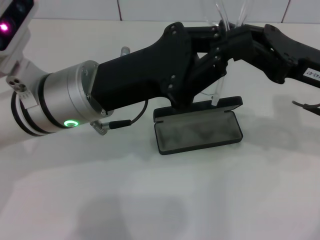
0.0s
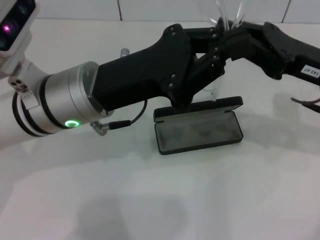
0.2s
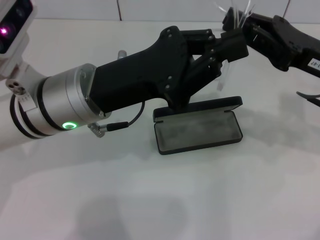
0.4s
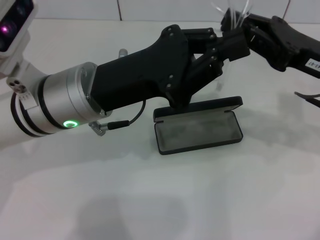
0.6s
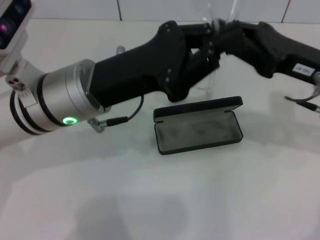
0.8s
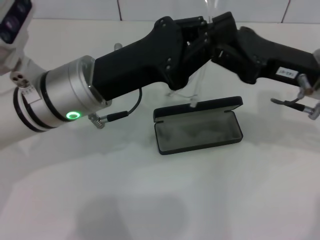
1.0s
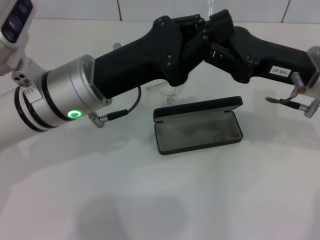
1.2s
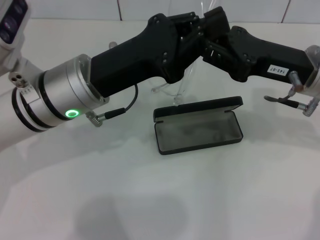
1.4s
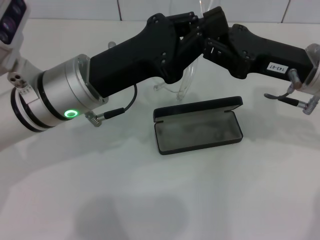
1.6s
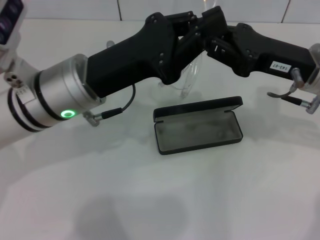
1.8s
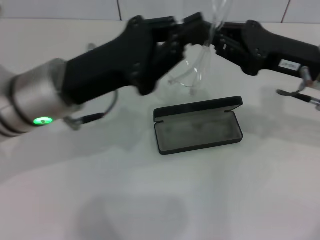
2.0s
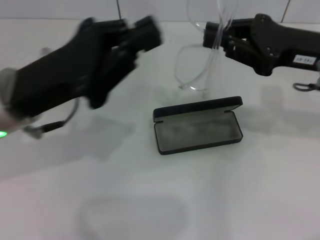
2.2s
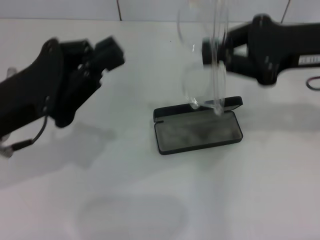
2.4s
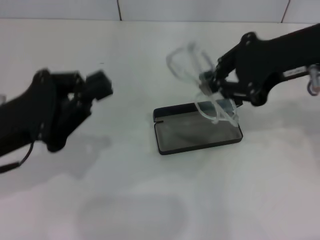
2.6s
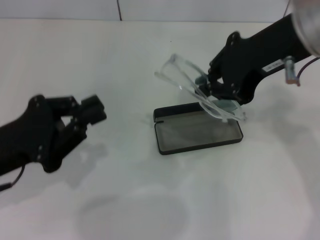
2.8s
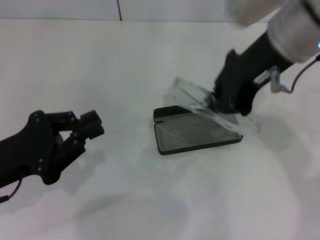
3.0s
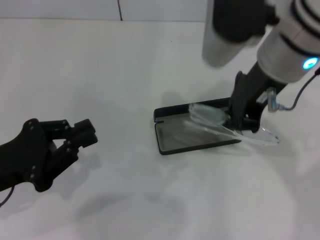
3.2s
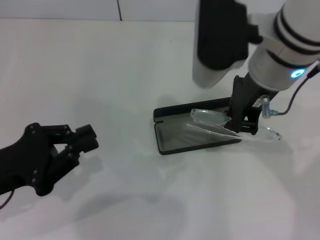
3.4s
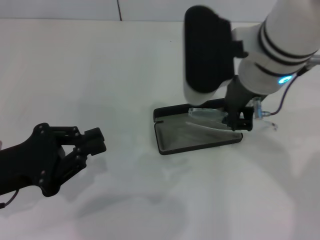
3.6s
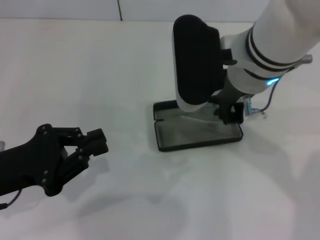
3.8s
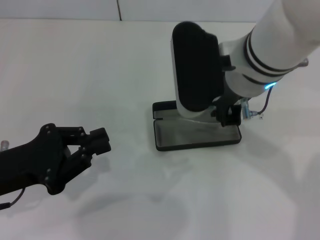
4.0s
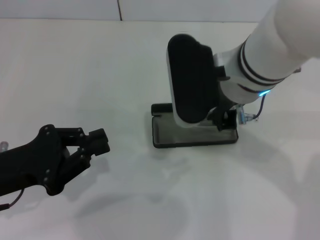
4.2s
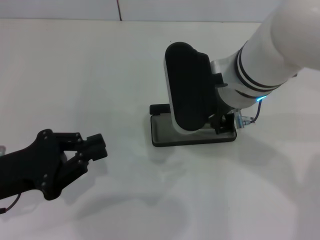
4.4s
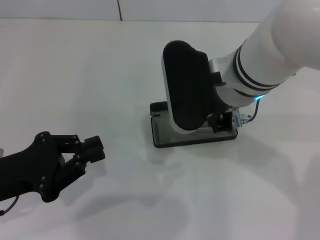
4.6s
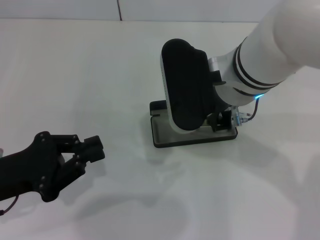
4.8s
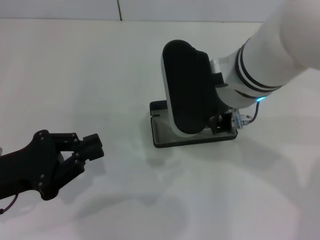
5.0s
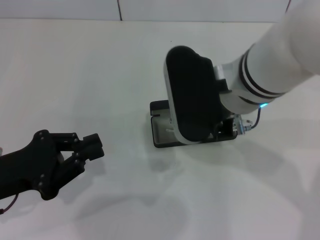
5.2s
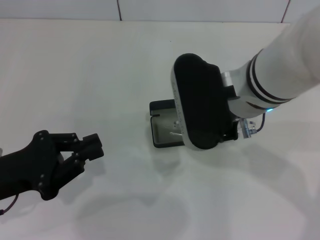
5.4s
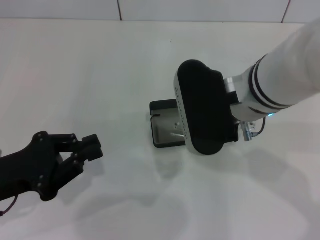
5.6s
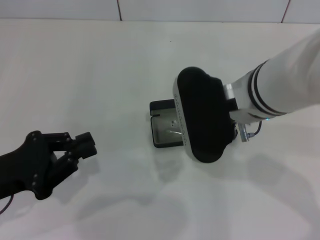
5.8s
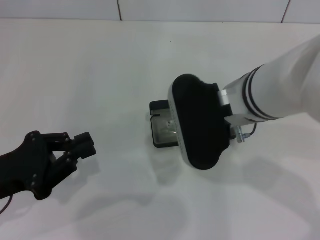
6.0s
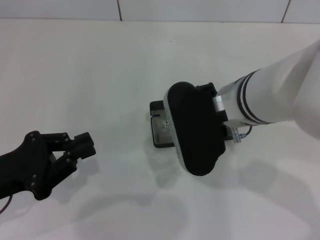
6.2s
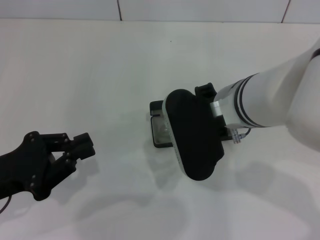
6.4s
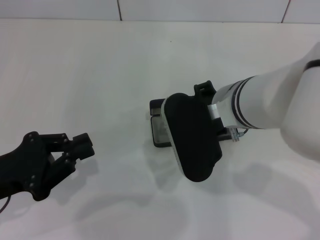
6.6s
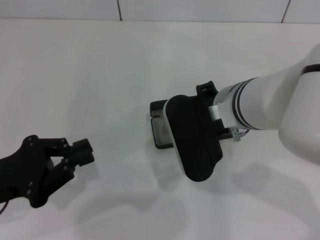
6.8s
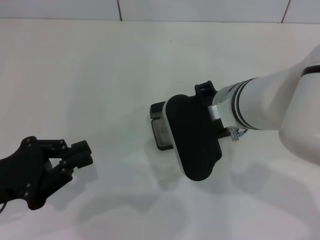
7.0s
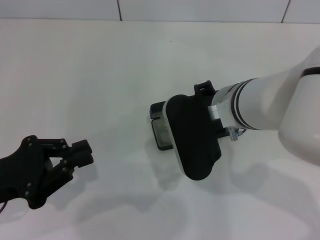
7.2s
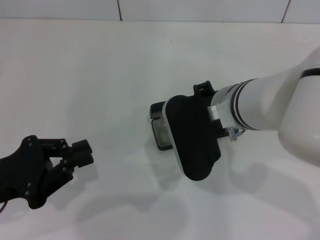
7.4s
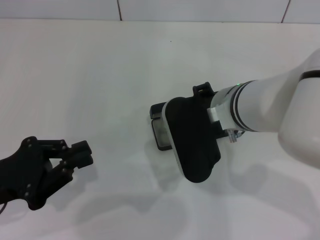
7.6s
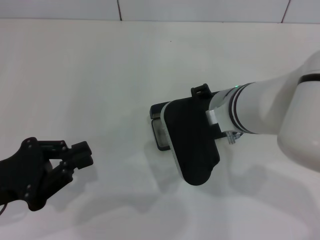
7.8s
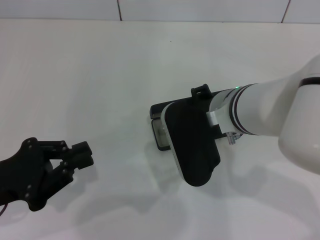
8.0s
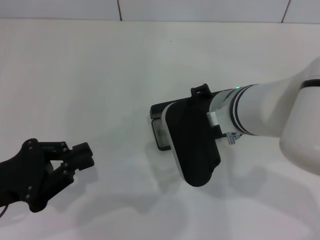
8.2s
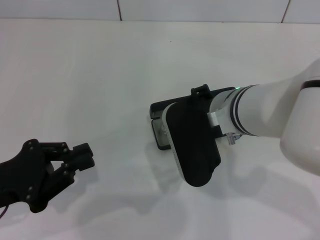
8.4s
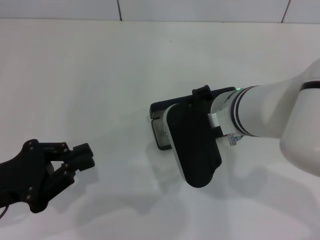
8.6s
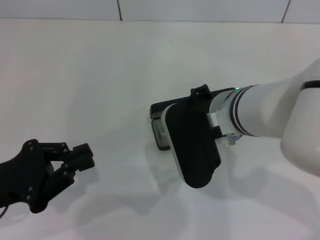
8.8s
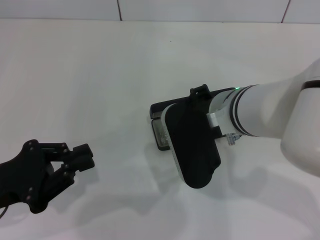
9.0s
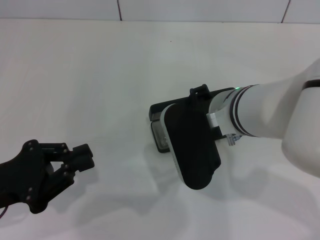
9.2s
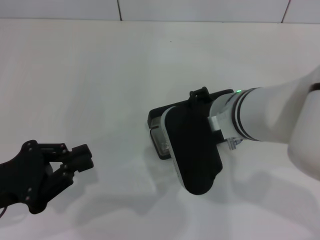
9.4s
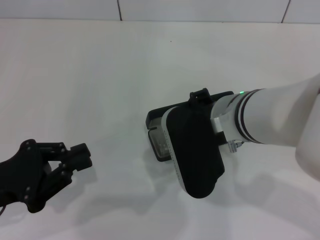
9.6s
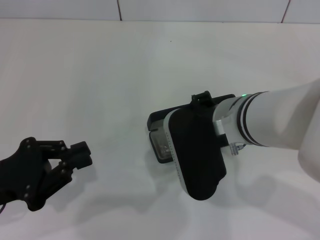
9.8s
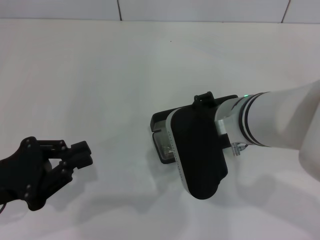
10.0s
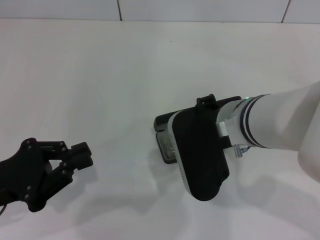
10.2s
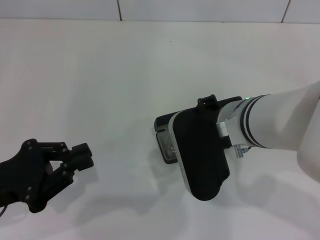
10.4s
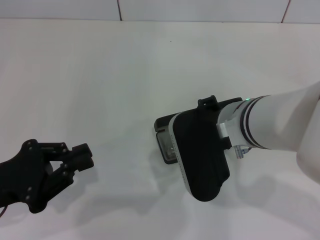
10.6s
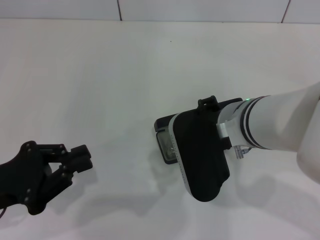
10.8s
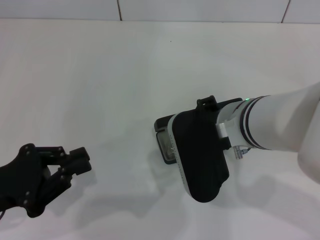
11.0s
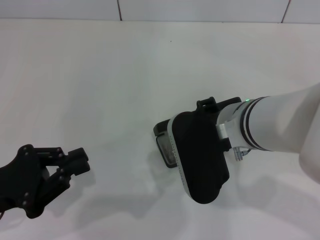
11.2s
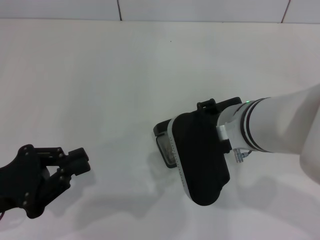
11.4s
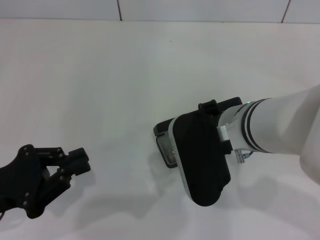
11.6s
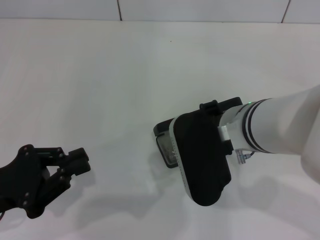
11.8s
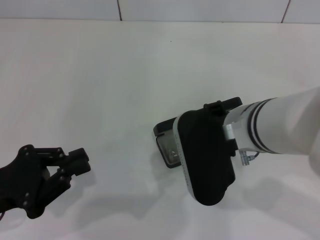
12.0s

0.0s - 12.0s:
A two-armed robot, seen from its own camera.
0.0s - 1.6s: The grippers stay close to where they were, moving slightly.
1.6s - 3.0s: The left gripper heads to the left and backward, covering some 15 cm; the right gripper moves upward and to the left, roughly 15 cm.
3.0s - 4.4s: The right gripper goes some 10 cm downward and to the left.
4.4s - 7.6s: There are only small adjustments of the grippers.
7.6s - 9.0s: The two grippers keep their place.
9.0s - 10.4s: The grippers move only a little.
10.4s - 12.0s: Both grippers stay about where they are.

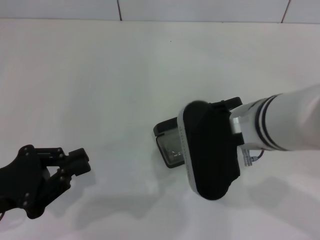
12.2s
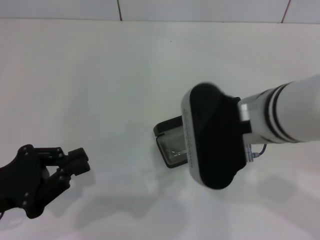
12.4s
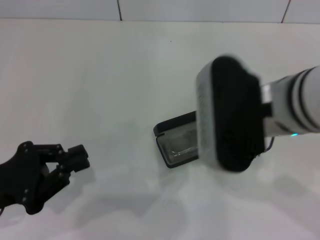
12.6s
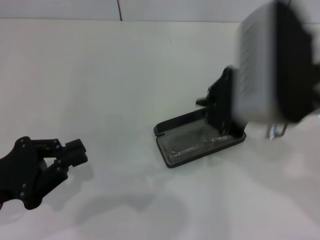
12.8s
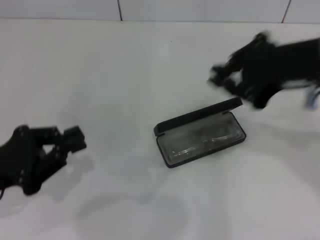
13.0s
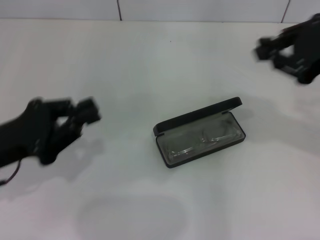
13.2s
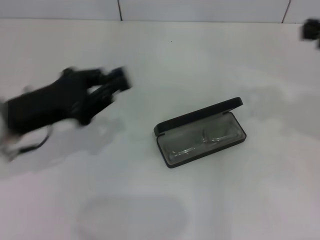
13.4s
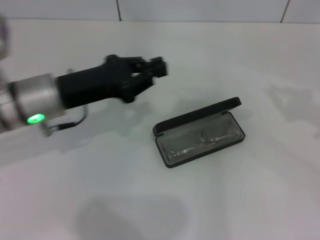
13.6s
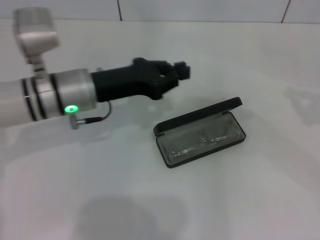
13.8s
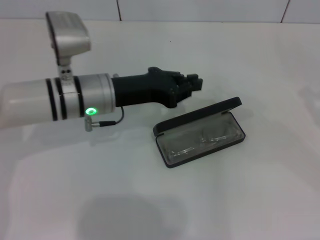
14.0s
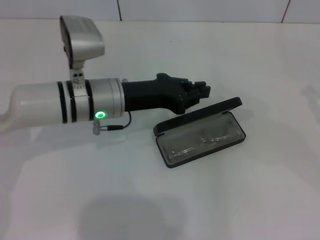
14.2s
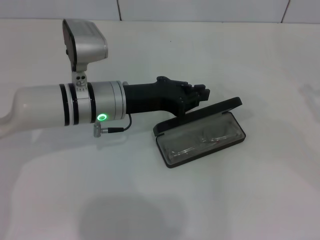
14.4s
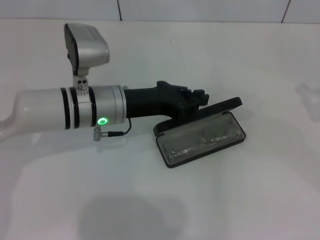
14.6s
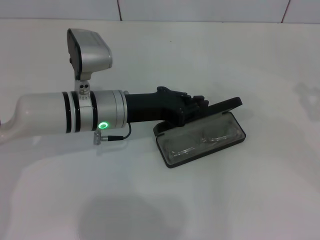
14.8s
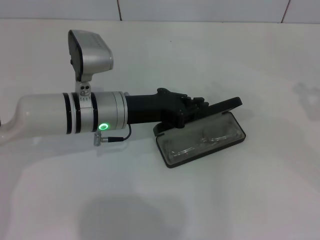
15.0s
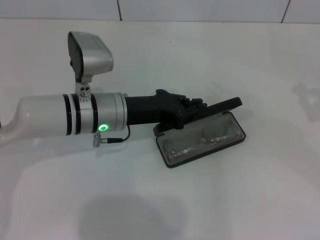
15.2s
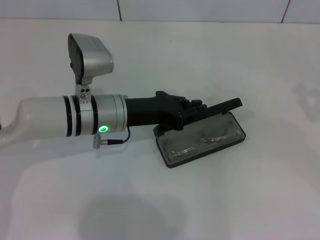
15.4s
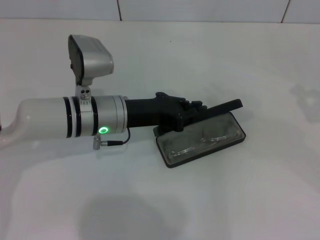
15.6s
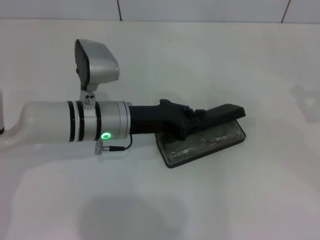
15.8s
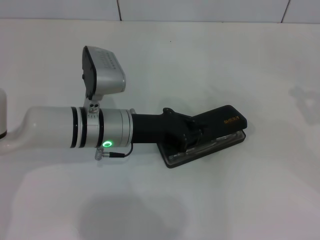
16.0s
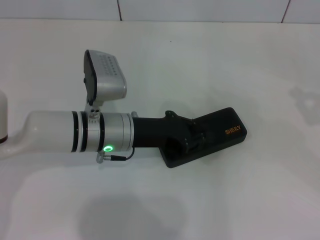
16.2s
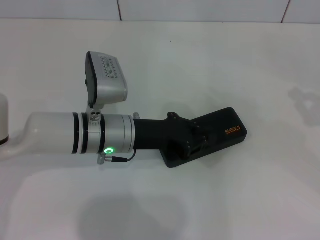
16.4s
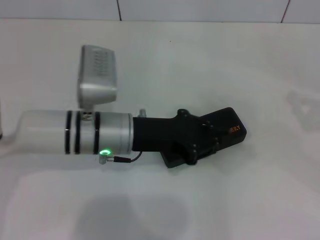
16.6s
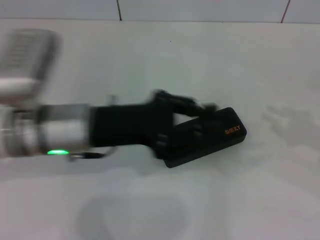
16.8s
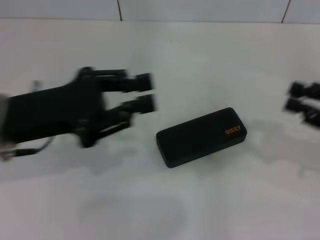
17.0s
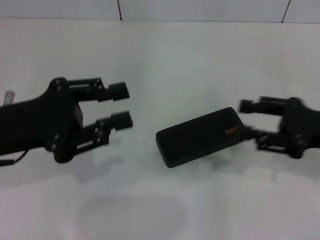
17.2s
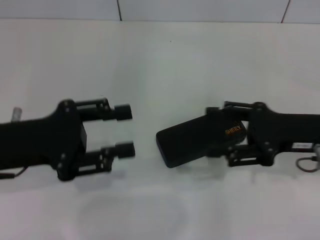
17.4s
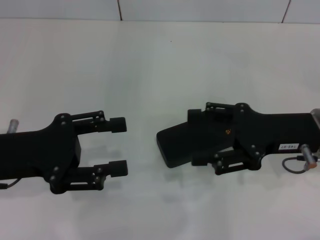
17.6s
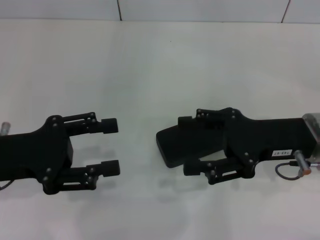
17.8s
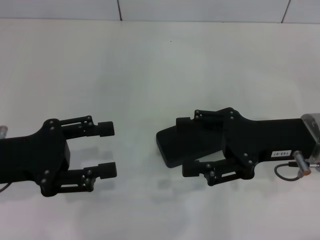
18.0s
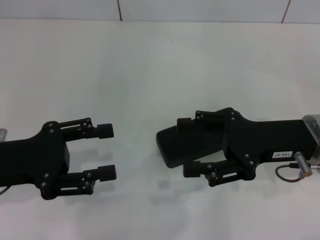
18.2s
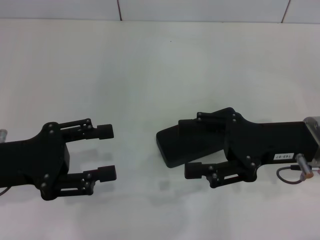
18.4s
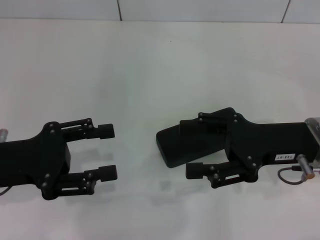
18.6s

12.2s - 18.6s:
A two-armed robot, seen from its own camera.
Step, 12.4s - 16.0s: Close the glasses case with your left hand.
12.2s - 13.8s: The left gripper moves forward and to the right, roughly 20 cm, while the right gripper shifts some 30 cm to the right.
13.8s - 15.4s: The left gripper changes place by some 5 cm.
15.4s - 17.0s: The right gripper travels to the left by some 5 cm; the left gripper heads to the left, upward and backward, covering about 15 cm.
17.0s - 18.6s: The left gripper heads to the left, covering approximately 5 cm, and opens. Meanwhile the right gripper travels to the left by some 15 cm, and opens.

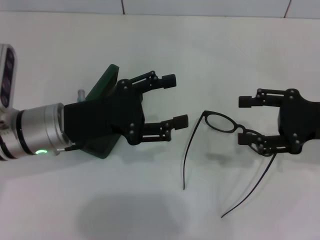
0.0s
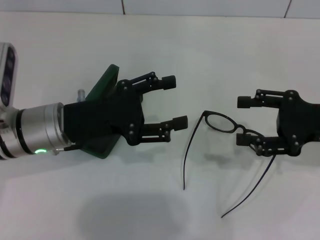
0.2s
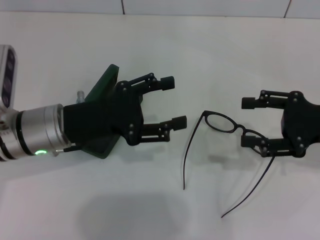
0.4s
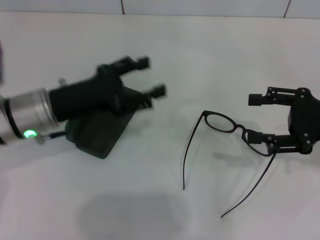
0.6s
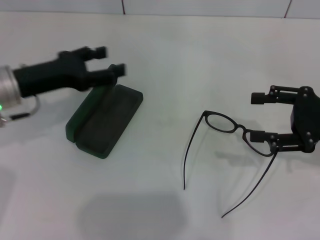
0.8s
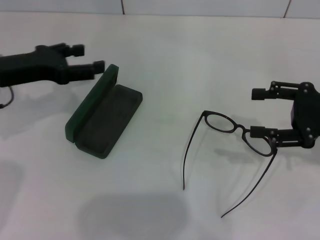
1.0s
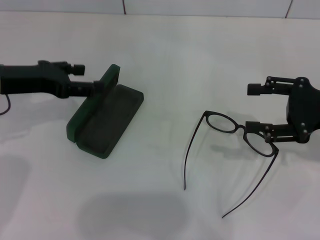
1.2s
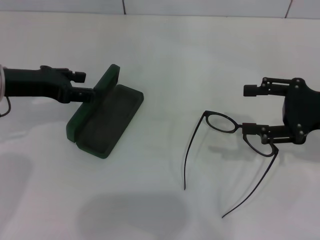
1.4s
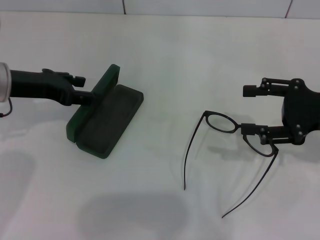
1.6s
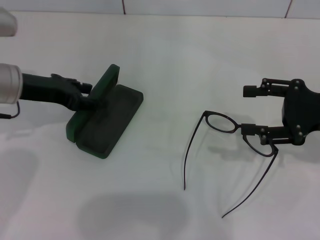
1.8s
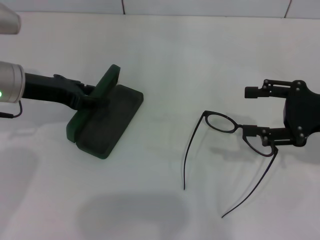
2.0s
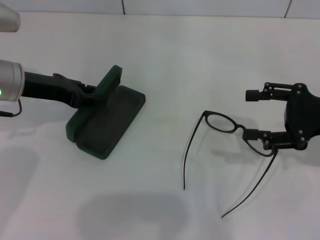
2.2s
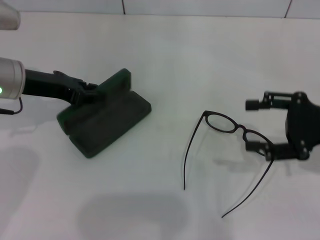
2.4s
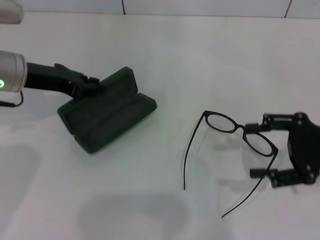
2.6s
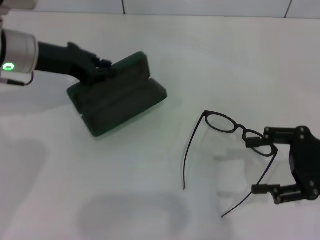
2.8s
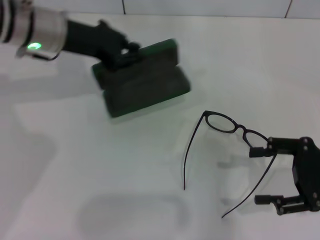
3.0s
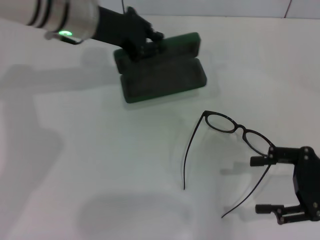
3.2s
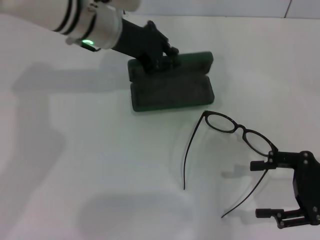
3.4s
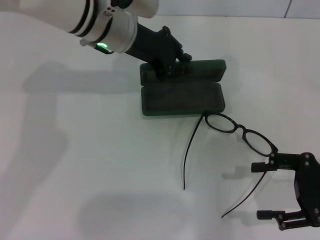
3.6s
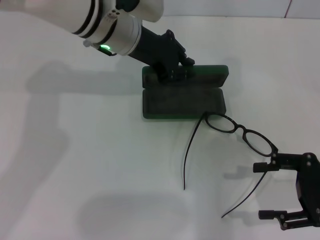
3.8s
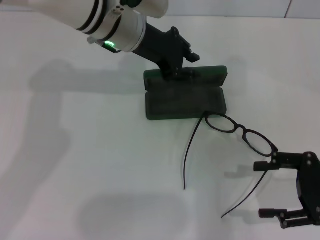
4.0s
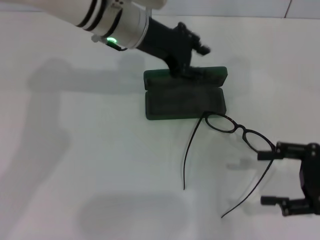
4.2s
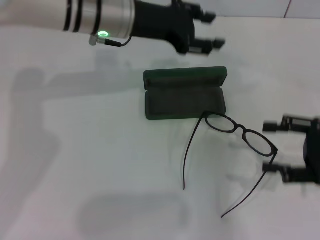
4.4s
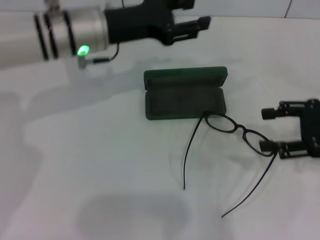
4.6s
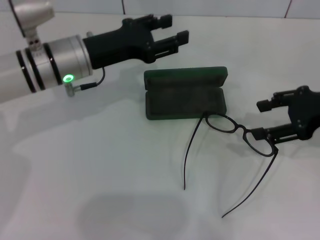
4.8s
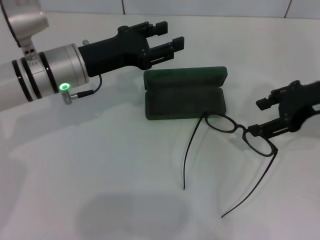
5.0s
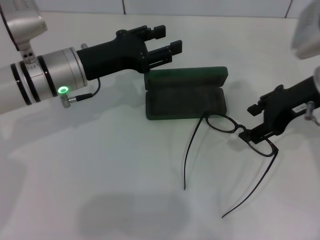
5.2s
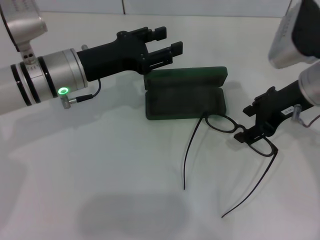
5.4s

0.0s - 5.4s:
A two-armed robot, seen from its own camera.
Step, 0.0s - 2.2s: Grab the glasses case with your left hand.
Step, 2.6s - 4.0s: Place the glasses case in the center of the table with your left hand.
0.0s - 1.4s: The left gripper is displaced to the left and forward by roughly 10 cm.
1.4s - 2.8s: The left gripper changes place by roughly 5 cm, and closes its fingers.
2.8s - 4.0s: The left gripper goes about 15 cm to the right.
4.0s - 5.4s: The right gripper moves forward, to the left and upward, some 20 cm. Meanwhile the left gripper moves to the left, backward and downward, some 15 cm, and opens.
